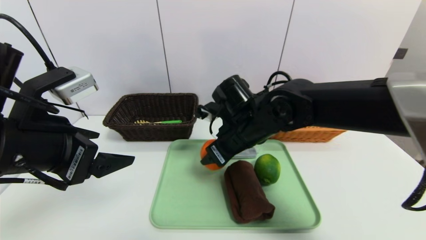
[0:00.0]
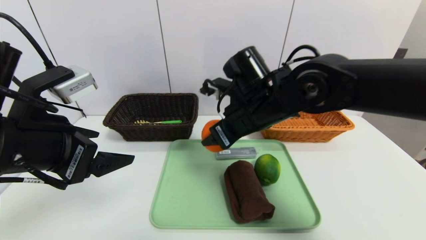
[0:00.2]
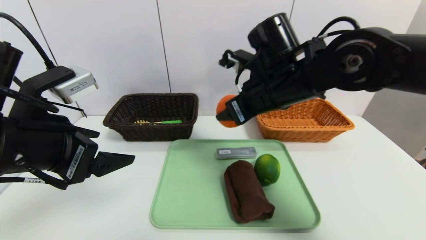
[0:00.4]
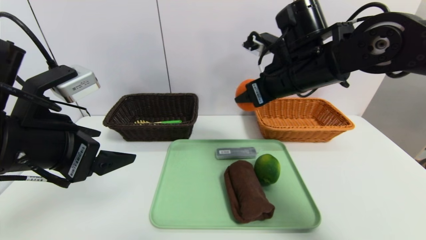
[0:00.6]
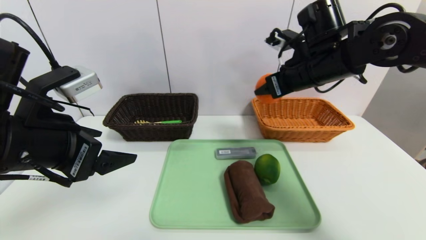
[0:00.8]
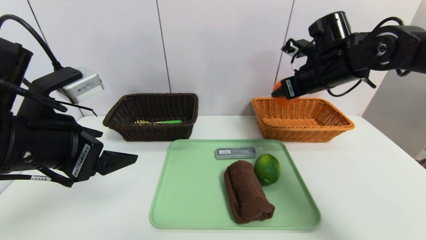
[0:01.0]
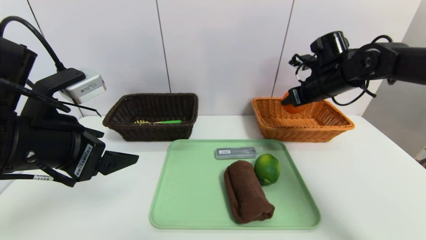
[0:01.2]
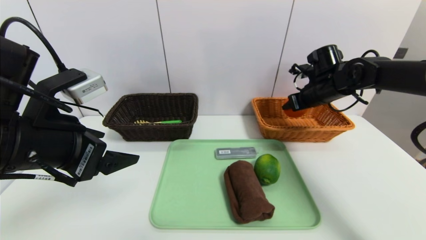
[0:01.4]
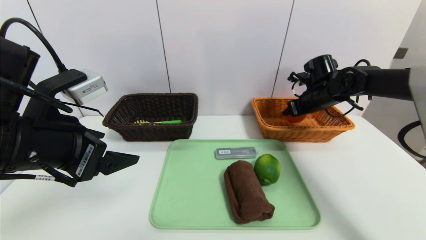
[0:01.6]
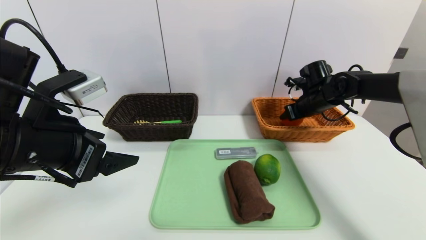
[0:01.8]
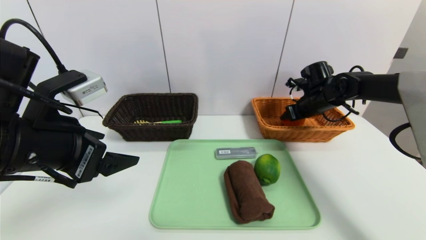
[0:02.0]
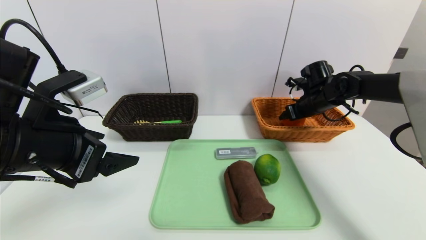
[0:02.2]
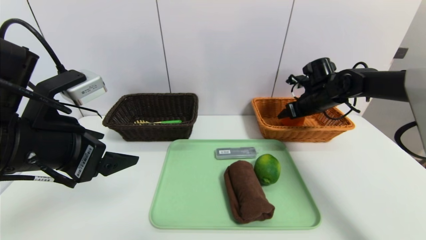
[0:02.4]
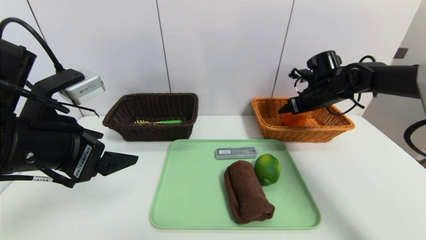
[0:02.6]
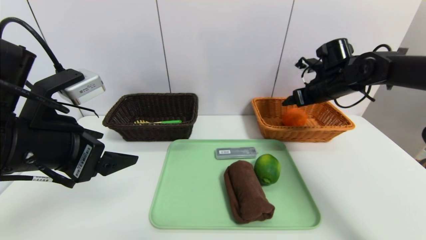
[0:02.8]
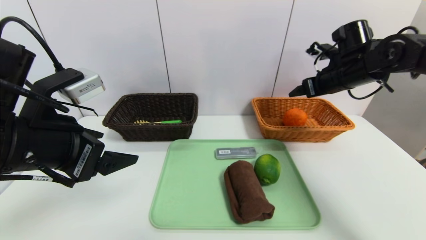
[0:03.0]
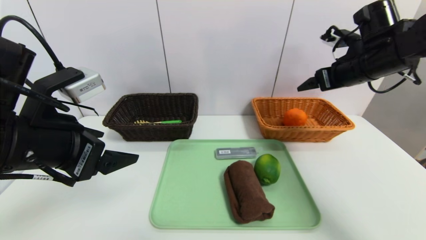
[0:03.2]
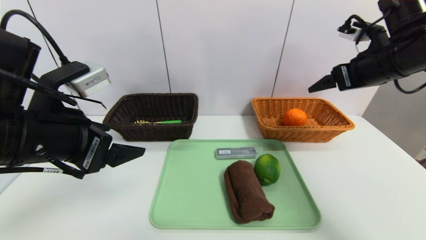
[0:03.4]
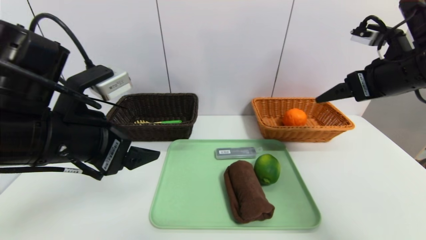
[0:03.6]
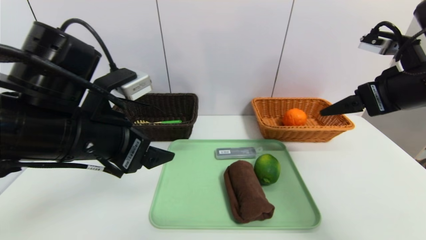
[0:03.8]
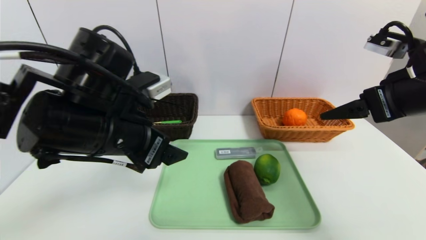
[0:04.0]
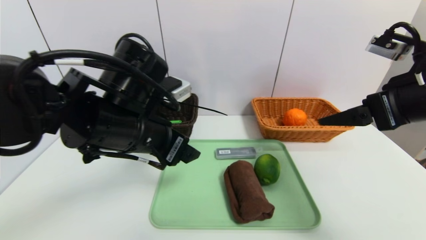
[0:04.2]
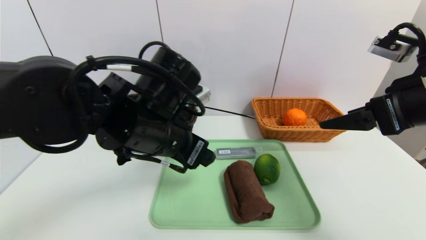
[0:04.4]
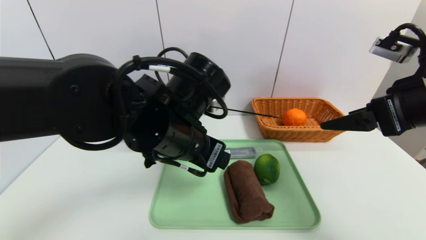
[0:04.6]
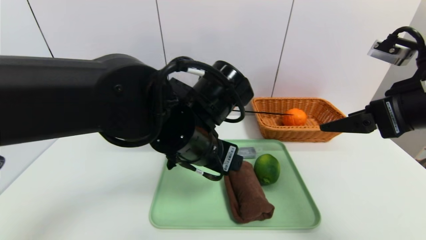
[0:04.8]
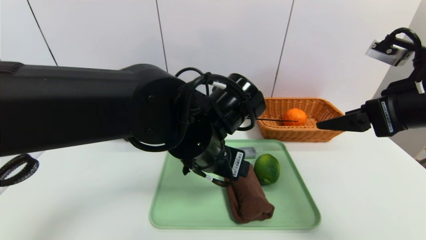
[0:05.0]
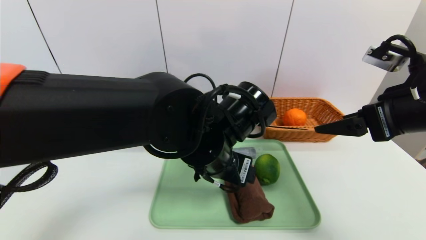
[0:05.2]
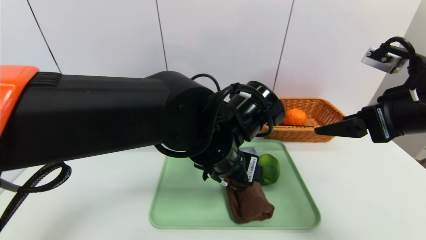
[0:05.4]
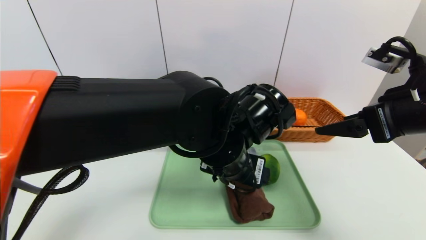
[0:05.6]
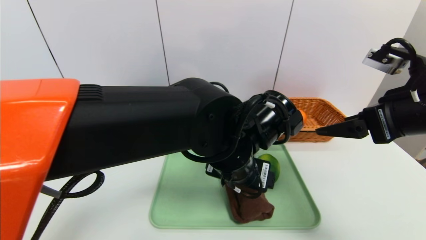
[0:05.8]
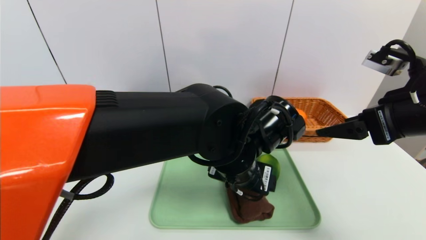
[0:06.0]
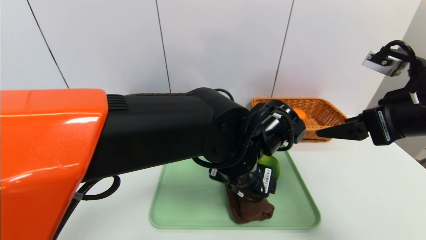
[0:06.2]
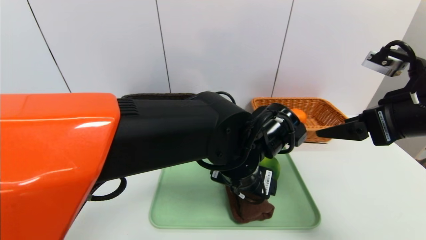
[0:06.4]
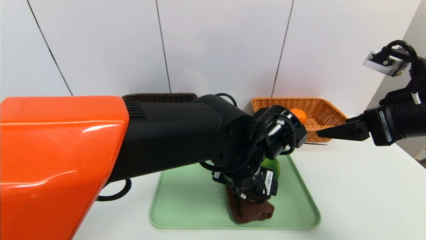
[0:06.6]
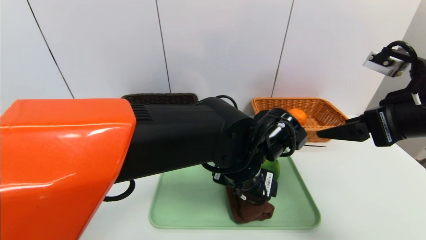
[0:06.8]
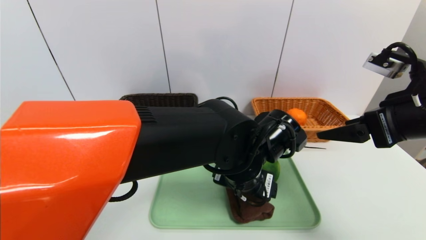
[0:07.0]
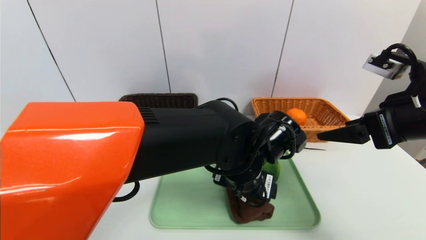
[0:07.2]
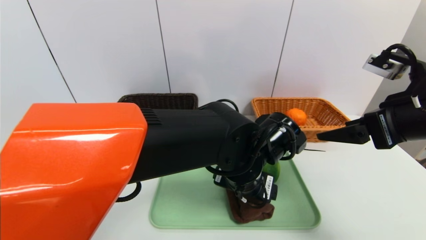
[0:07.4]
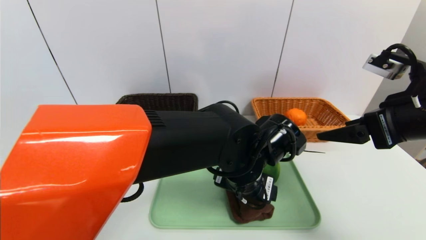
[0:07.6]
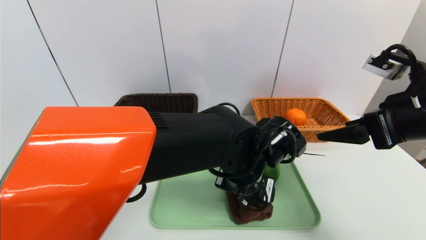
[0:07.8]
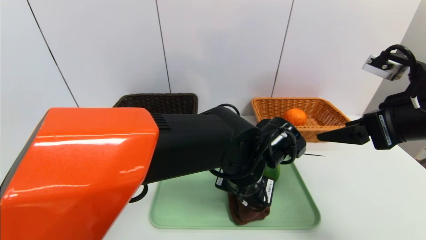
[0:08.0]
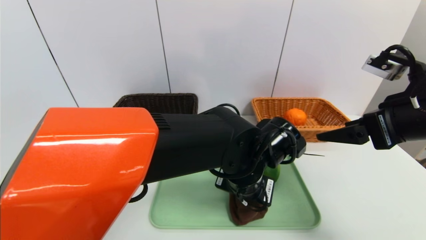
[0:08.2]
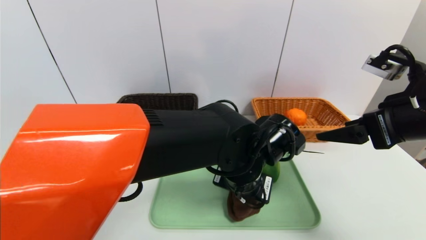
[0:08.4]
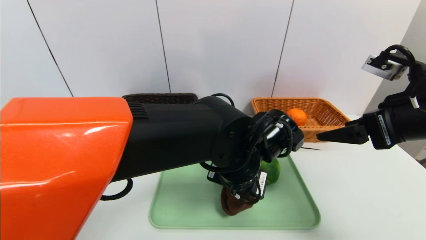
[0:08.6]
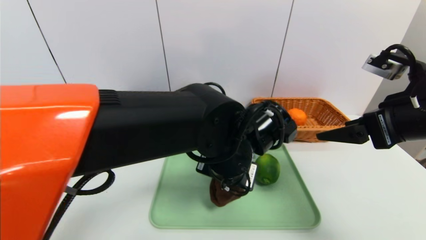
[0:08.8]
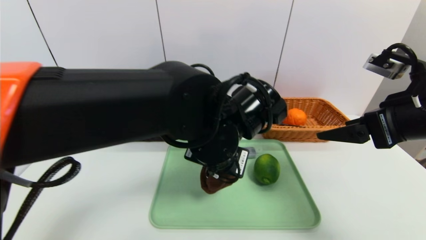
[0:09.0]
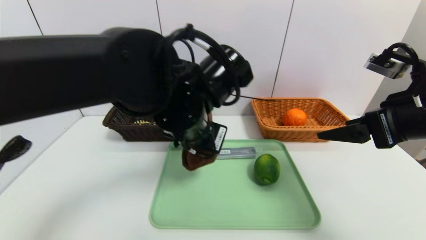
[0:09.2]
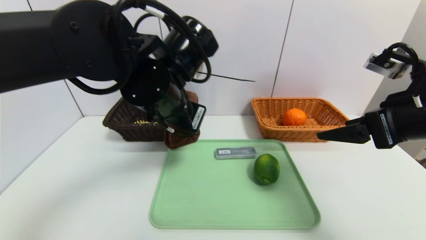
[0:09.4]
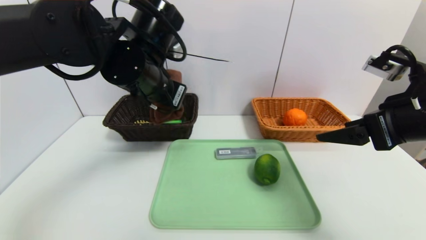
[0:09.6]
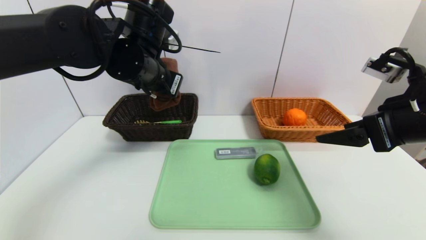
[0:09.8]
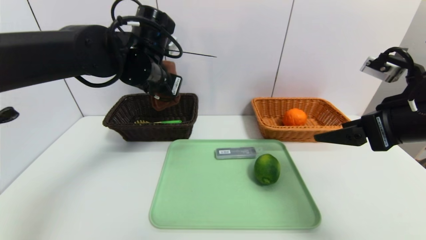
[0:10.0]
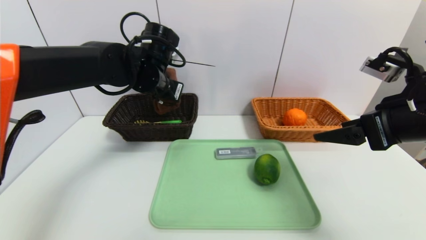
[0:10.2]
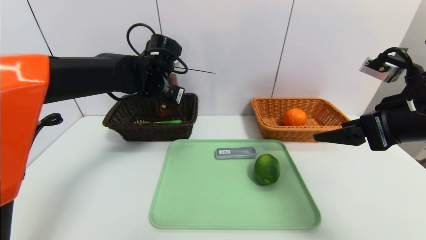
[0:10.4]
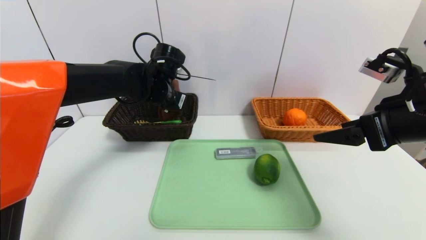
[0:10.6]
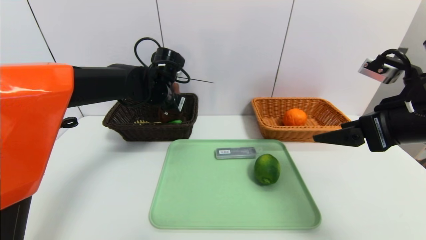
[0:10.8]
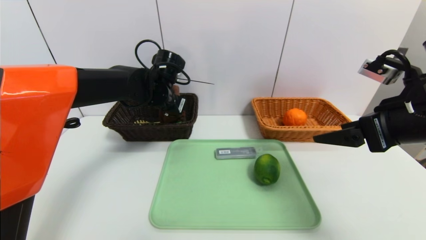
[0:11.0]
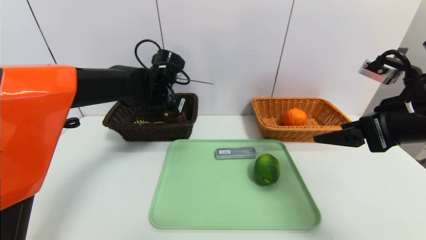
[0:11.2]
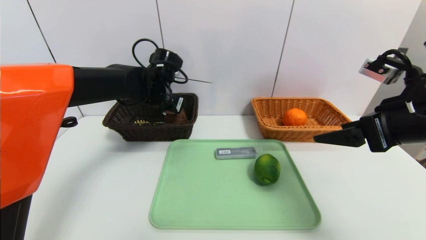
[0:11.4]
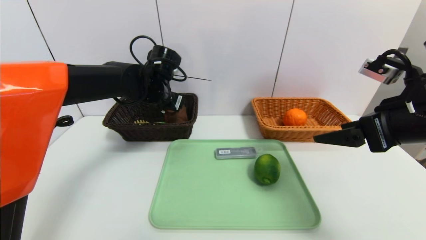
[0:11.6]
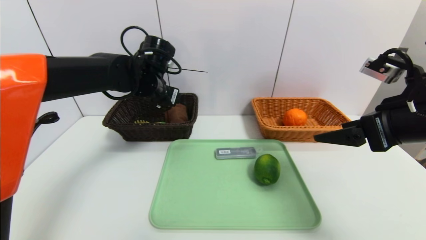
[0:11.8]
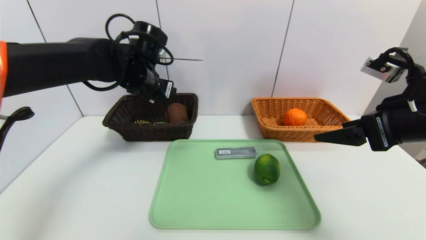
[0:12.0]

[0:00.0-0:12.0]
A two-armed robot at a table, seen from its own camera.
Task of the whole recording: place the food in the right basket with the right gripper, and place the non food items in the left basket with the left gripper.
Step, 0:00.0 to 0:02.8: Grasp the orange and put it in the right basket.
Step, 0:03.0 to 0:11.8: Grasp the brown towel and put it in the left basket.
0:00.0 to 0:01.6: The right gripper travels to the right and forward by approximately 25 cm.
0:01.6 to 0:03.0: The right gripper moves upward and backward, about 10 cm, and opens.
0:03.0 to 0:04.4: The right gripper moves backward, some 20 cm; the left gripper is displaced to the right and forward by approximately 15 cm.
0:04.4 to 0:06.0: The left gripper moves to the right, some 10 cm.
0:07.6 to 0:09.0: The left gripper goes approximately 10 cm upward and to the left, and closes its fingers.
0:09.0 to 0:10.4: The left gripper travels forward and to the left by about 20 cm.
0:10.4 to 0:12.0: The left gripper opens up.

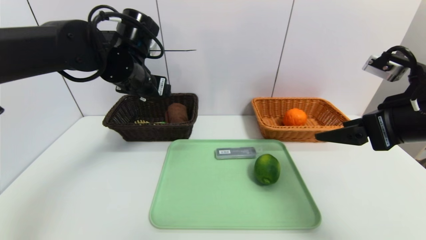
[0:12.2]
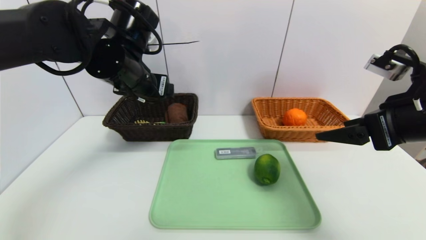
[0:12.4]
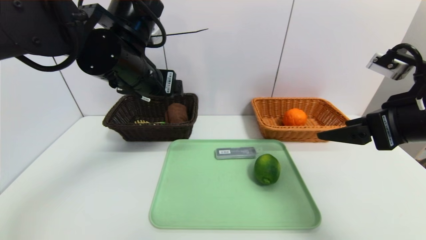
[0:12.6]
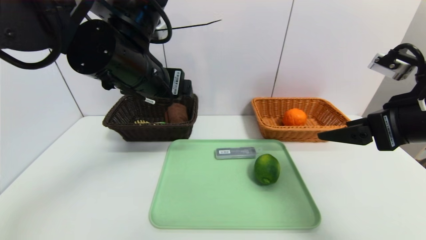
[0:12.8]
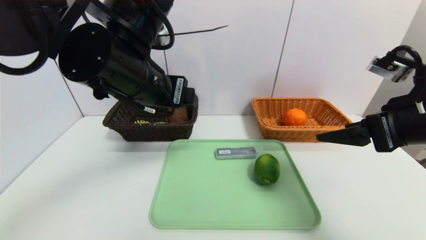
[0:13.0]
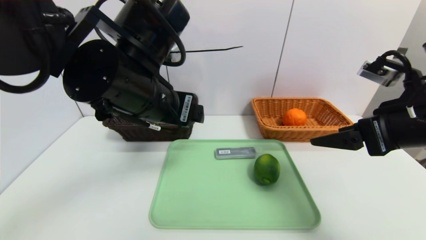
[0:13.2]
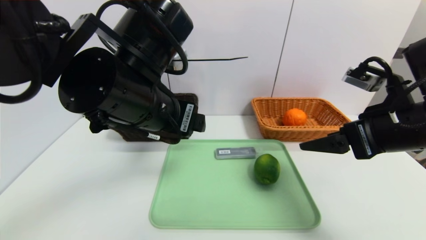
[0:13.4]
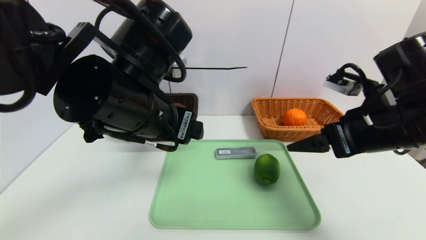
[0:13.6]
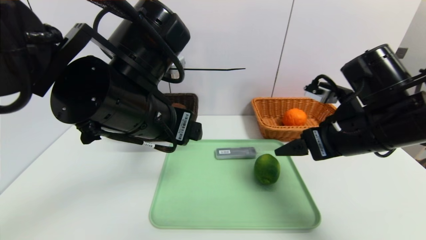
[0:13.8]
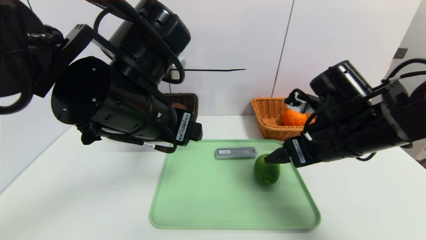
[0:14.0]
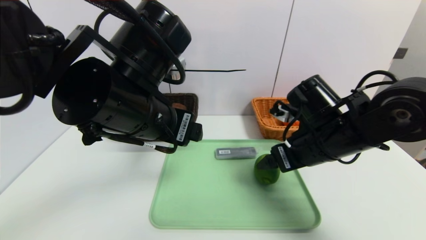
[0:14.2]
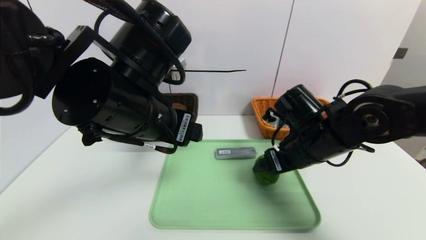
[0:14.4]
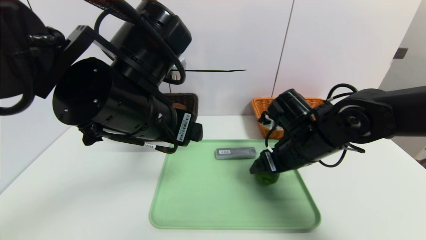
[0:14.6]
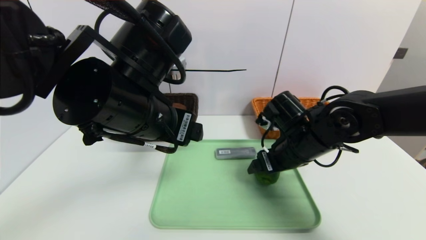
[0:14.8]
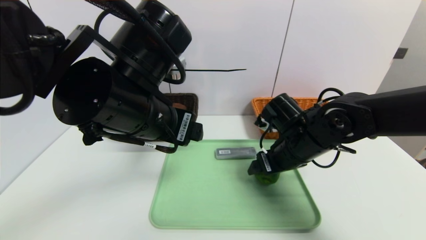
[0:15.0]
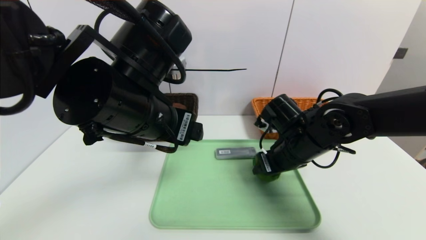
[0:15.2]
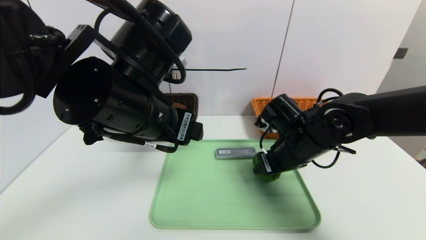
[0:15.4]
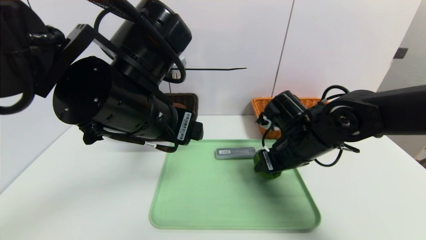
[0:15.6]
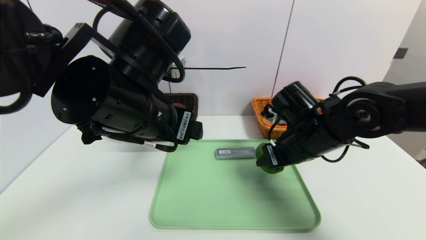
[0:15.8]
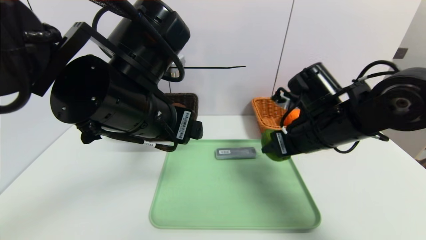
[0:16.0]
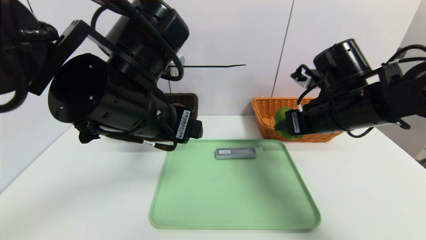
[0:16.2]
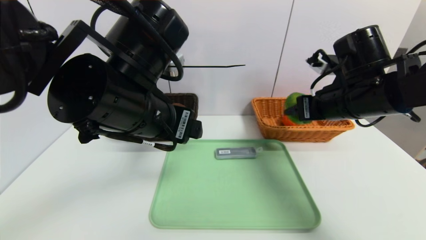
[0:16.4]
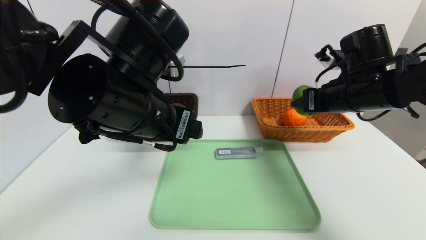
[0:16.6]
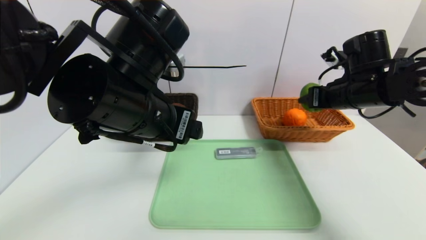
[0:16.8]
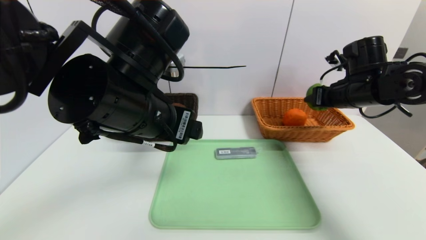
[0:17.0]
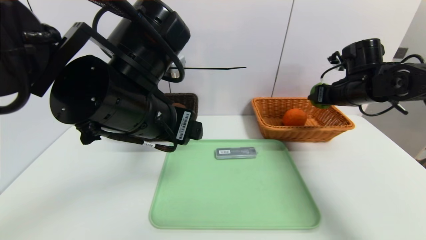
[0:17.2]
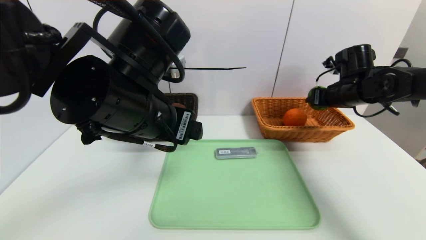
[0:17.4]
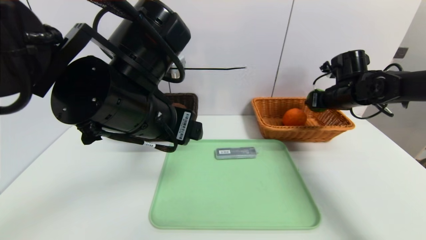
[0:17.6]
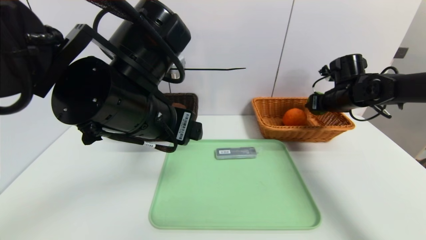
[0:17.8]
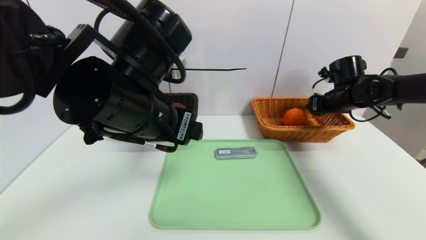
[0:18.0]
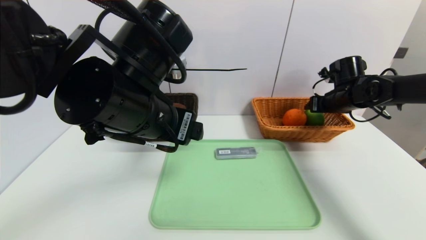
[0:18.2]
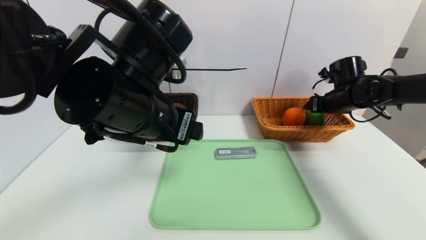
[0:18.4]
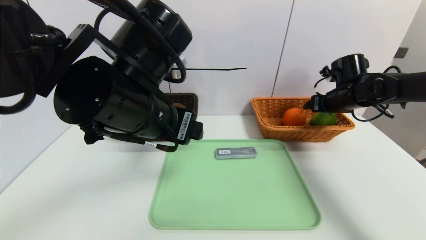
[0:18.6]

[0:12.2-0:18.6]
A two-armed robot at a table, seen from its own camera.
Task of the whole recording: place the food in the right basket with the right gripper, and place the non food items in the left basket with the left gripper.
0:12.2 to 0:13.8: The right gripper moves to the left, approximately 5 cm. The left gripper travels backward and to the right by approximately 15 cm.
0:13.8 to 0:15.4: The right gripper goes about 10 cm downward, forward and to the left, and closes.
0:15.4 to 0:17.0: The right gripper goes some 15 cm to the right, upward and forward.
0:17.0 to 0:18.6: The right gripper is displaced forward by roughly 5 cm, and opens.
